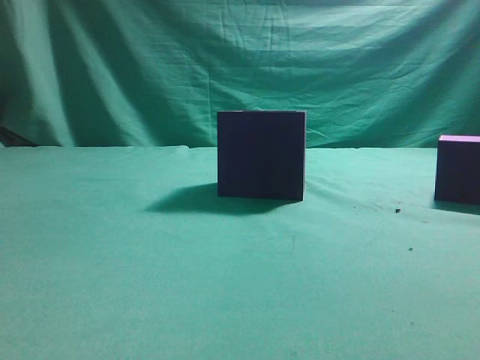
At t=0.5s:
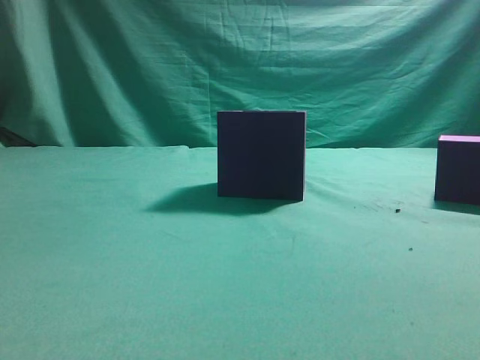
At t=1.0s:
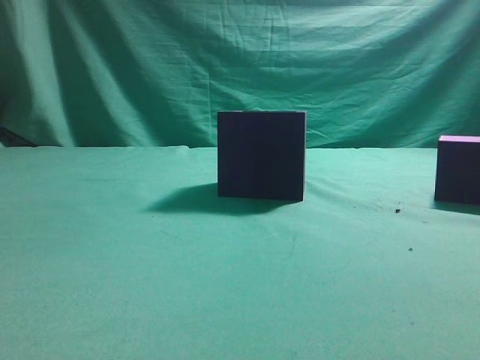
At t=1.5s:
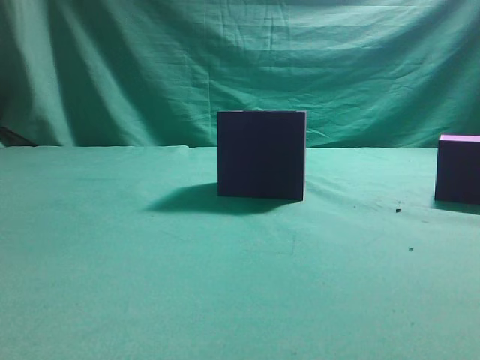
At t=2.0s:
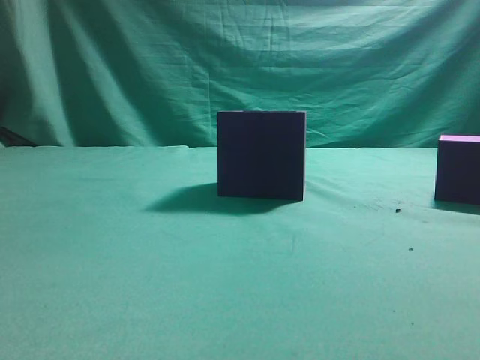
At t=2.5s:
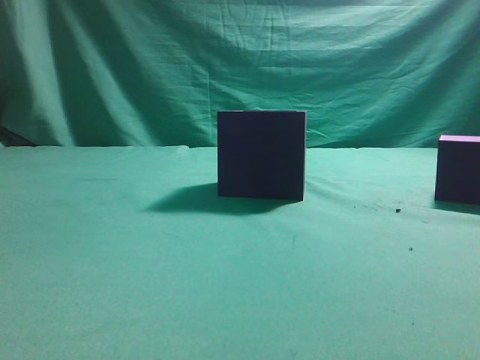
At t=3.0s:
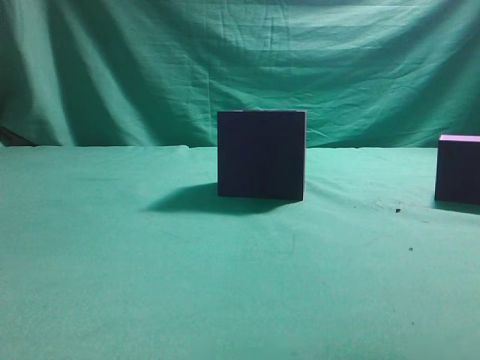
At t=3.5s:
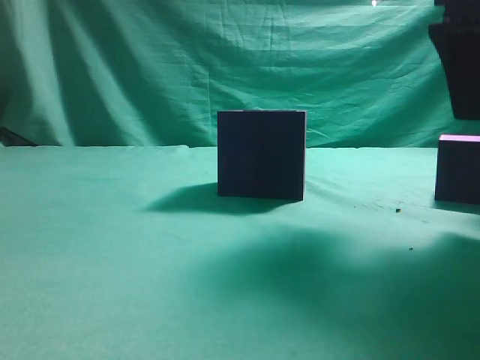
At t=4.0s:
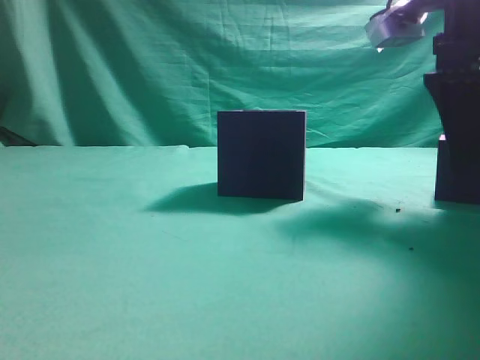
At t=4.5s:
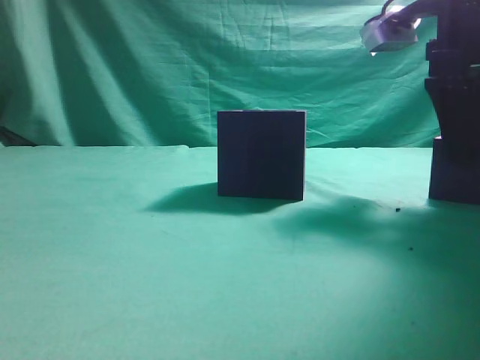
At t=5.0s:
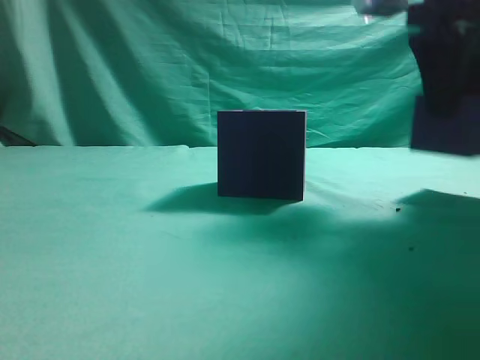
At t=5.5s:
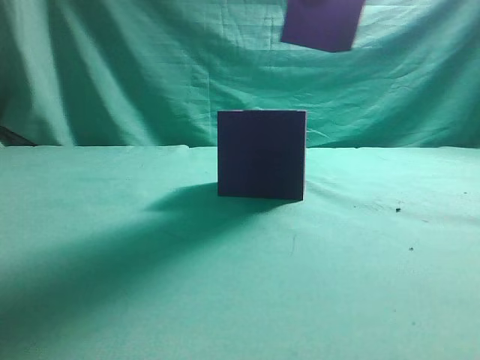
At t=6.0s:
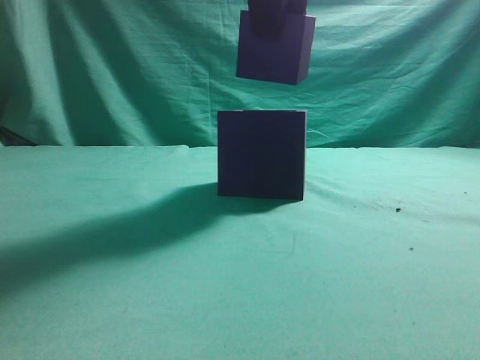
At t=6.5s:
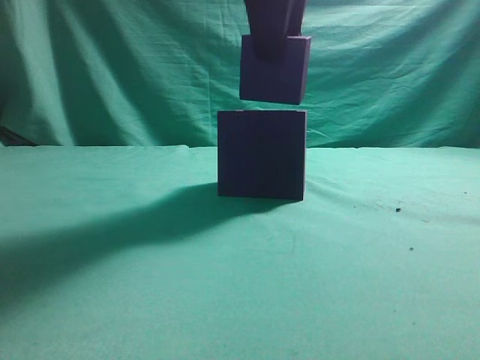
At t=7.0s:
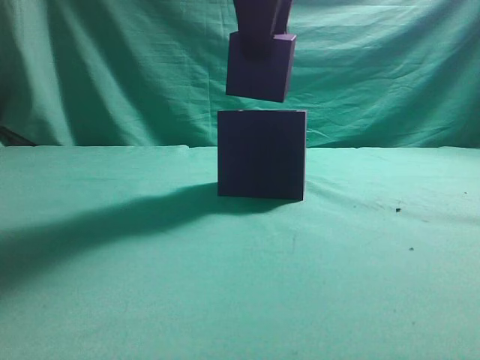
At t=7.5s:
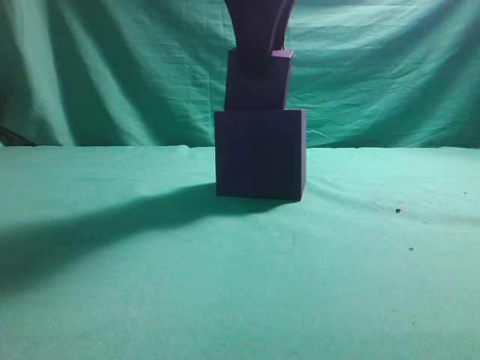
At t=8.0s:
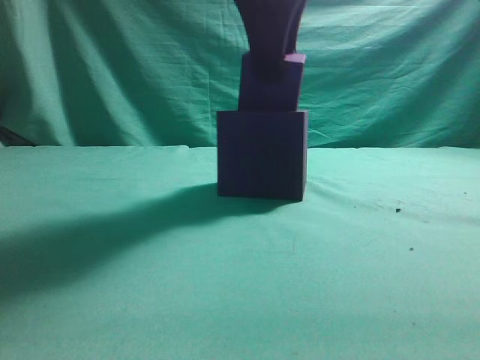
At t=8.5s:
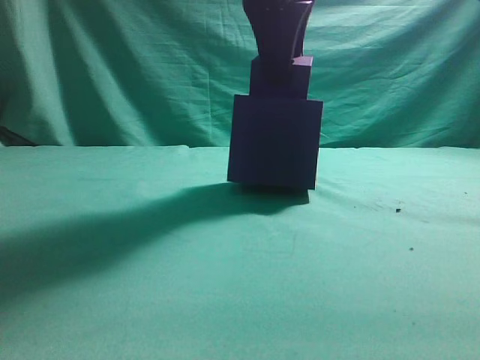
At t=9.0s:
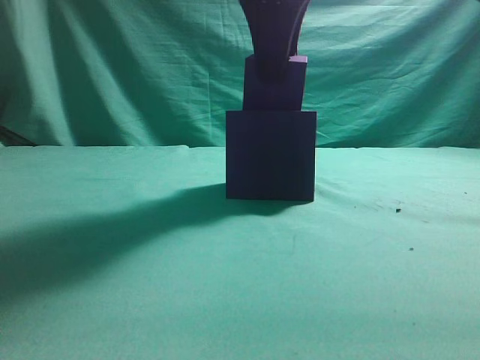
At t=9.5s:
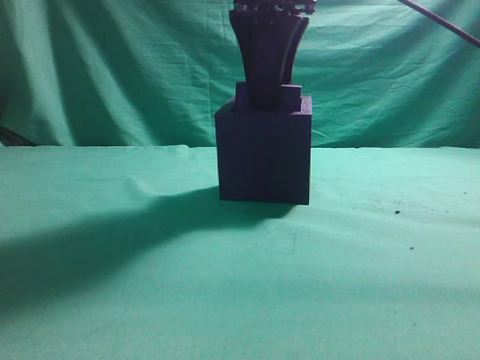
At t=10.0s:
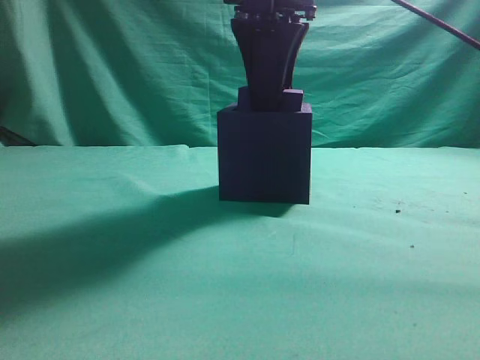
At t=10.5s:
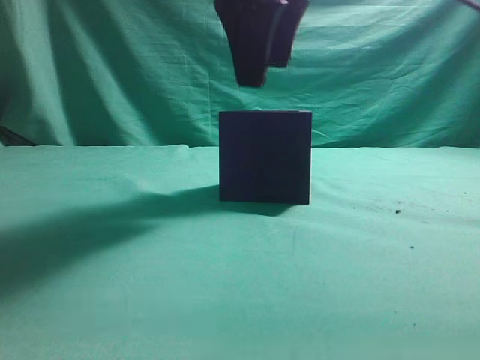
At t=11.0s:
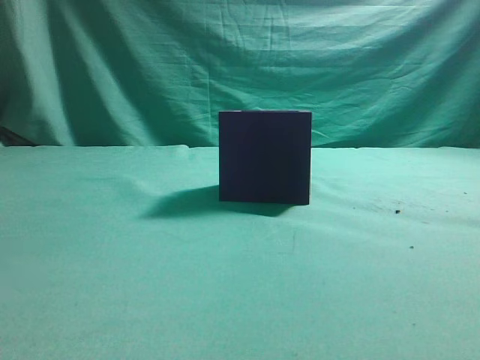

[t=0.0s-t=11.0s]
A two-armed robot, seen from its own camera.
Task of the whole recording: pick up the cube block and place it into the cube groove.
Step, t=0.0s to t=4.5s: Grasp the cube.
Step, t=5.5s to t=10.5s: Place cube into the cube-shaped recess.
t=2.0s to t=3.5s: The right gripper travels forward by approximately 20 cm, and opens its fingers.
t=3.5s to t=5.5s: The right gripper shifts approximately 15 cm to the left and upward.
t=5.5s to t=7.5s: The right gripper is displaced to the left and downward by approximately 10 cm.
t=7.5s to t=9.0s: There are only small adjustments of the grippers.
t=9.0s to t=11.0s: The right gripper is displaced upward by roughly 10 cm.
